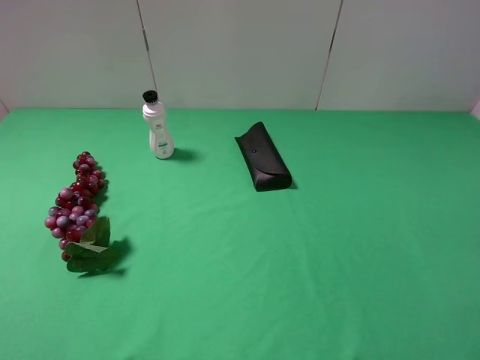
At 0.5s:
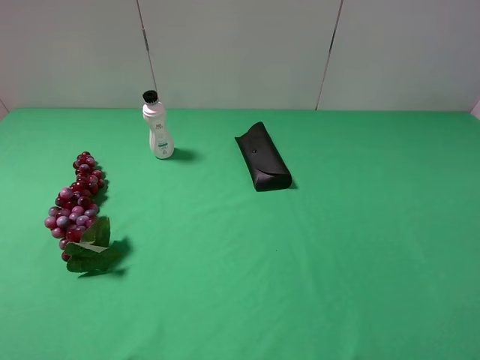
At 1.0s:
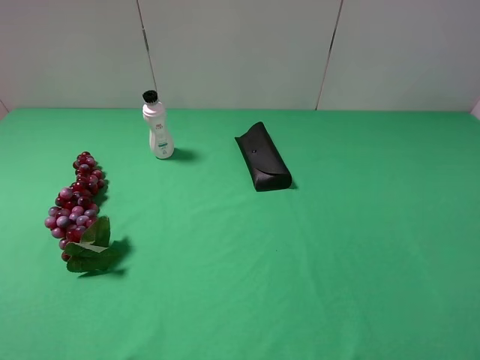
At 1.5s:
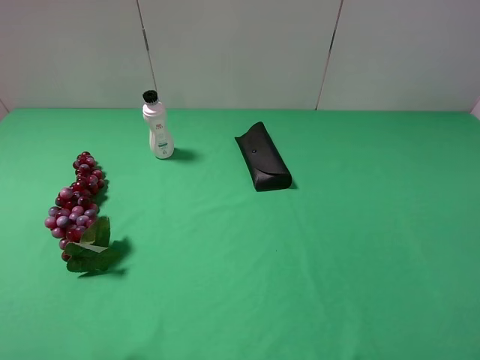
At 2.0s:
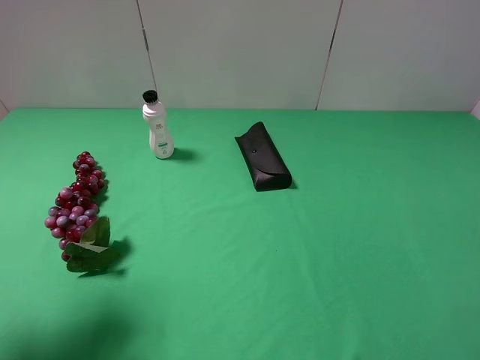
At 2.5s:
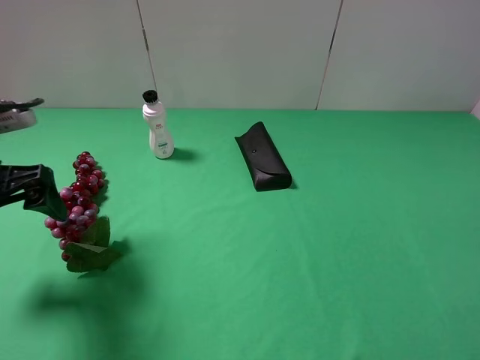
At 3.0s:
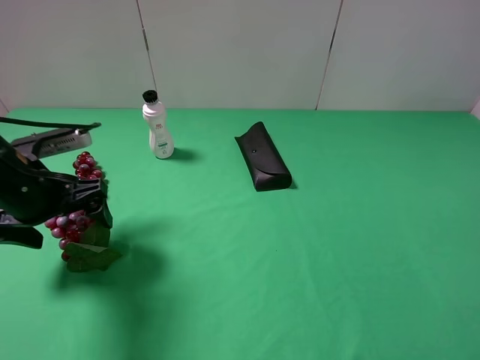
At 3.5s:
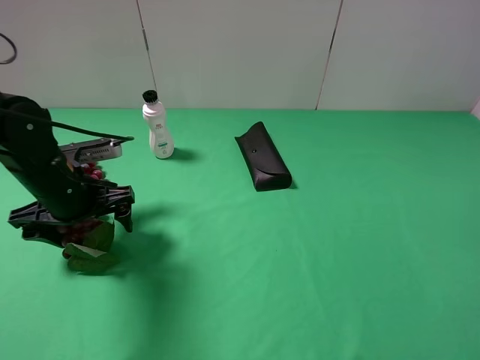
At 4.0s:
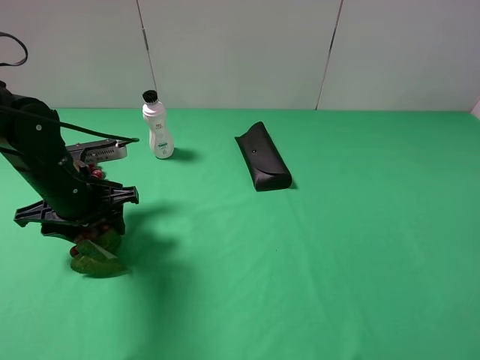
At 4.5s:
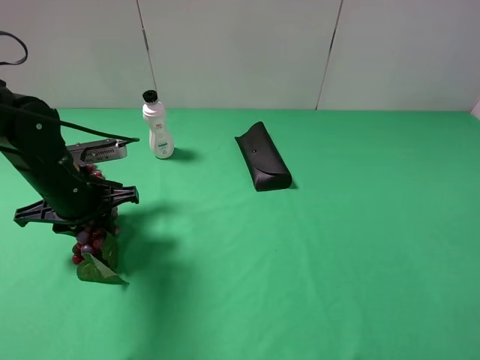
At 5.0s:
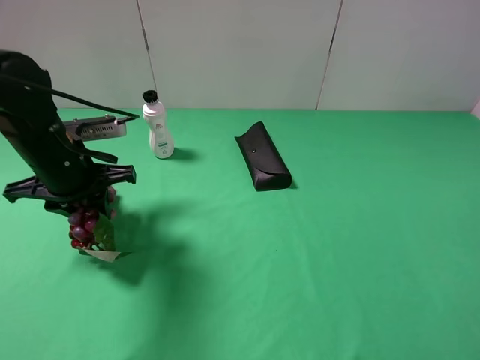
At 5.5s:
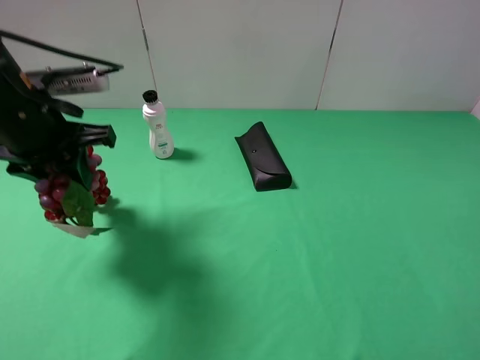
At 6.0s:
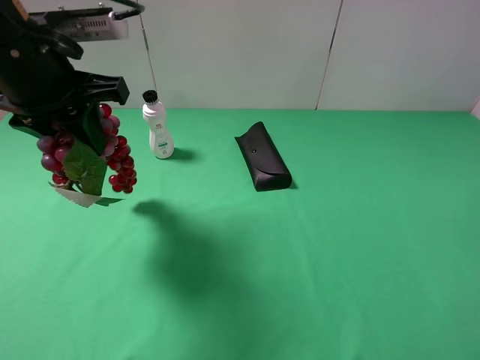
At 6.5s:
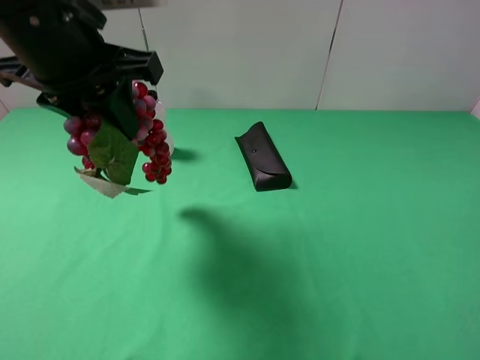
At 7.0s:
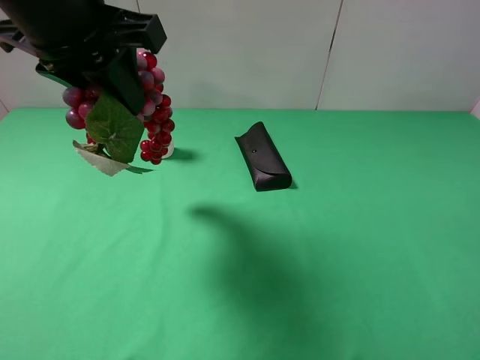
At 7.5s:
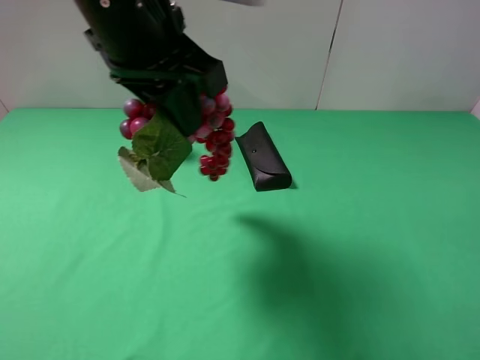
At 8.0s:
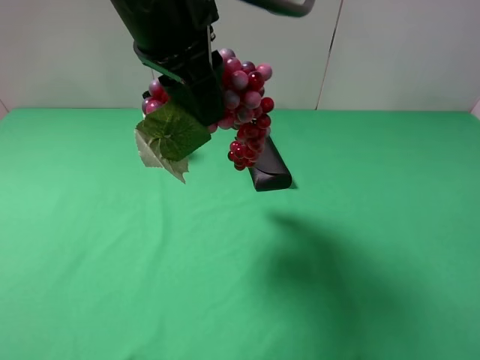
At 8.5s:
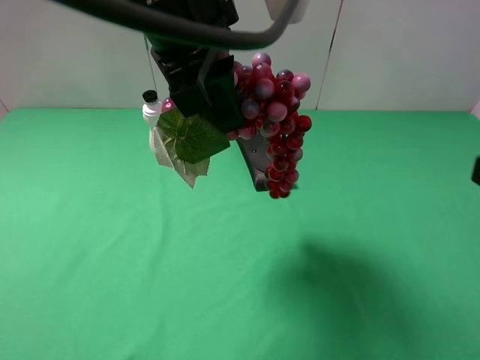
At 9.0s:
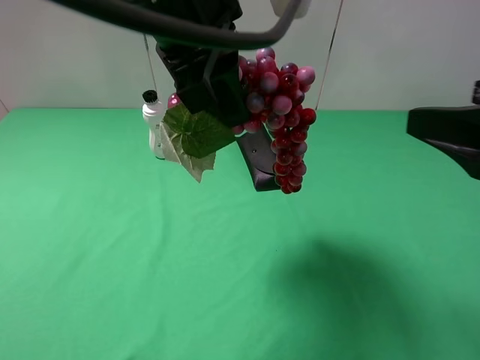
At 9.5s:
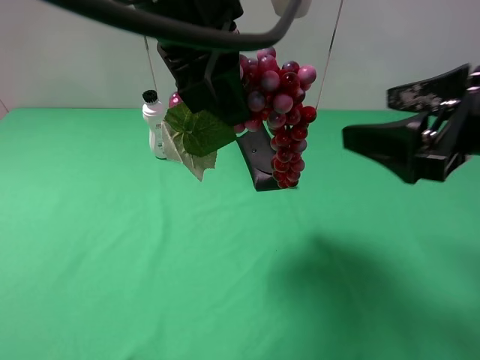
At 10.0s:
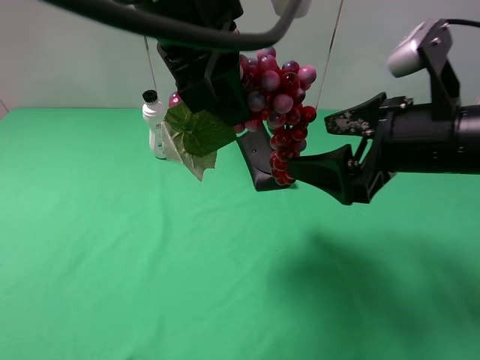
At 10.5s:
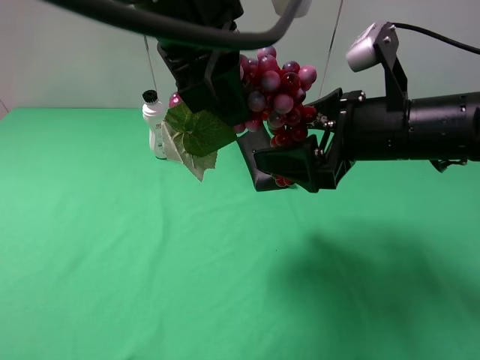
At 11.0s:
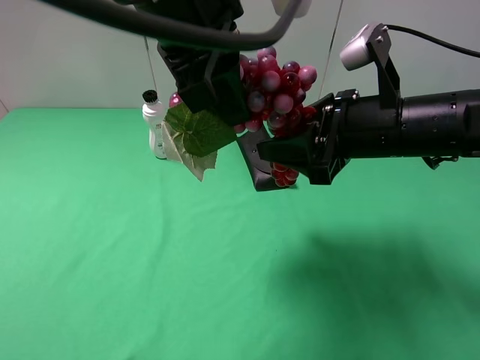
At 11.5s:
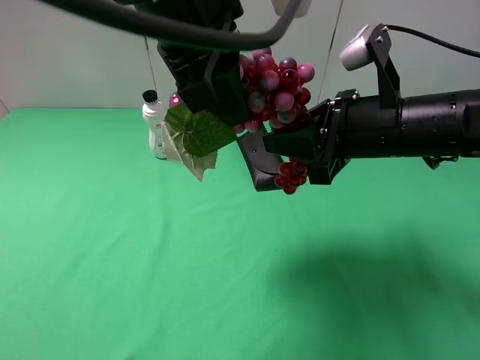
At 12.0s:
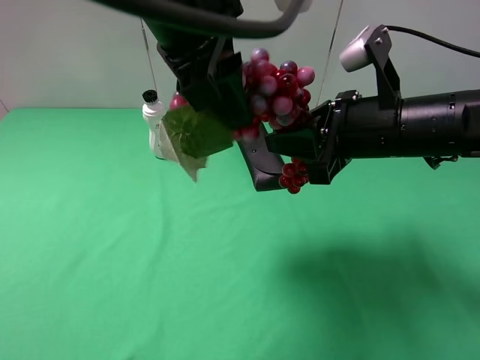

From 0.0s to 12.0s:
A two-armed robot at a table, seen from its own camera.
Task of the whole recording: use the left gripper to pick up the item and transfer it from the left gripper to the right gripper.
Step, from 0.0s to 4.0s: Use the left gripper to grab the grape on the left side of the table.
From 0.0s to 2.0s: The left gripper is displaced forward by roughly 15 cm.
From 2.0s to 4.0s: The left gripper shifts about 20 cm downward, forward and to the right, and closes.
From 4.0s to 6.0s: The left gripper heads upward, covering some 20 cm, and closes its fingers.
From 6.0s to 8.0s: The left gripper travels to the right by approximately 15 cm.
From 8.0s to 10.0s: The right gripper is displaced forward and to the left by approximately 20 cm.
From 10.0s to 12.0s: The left gripper opens. Meanwhile the right gripper closes up.

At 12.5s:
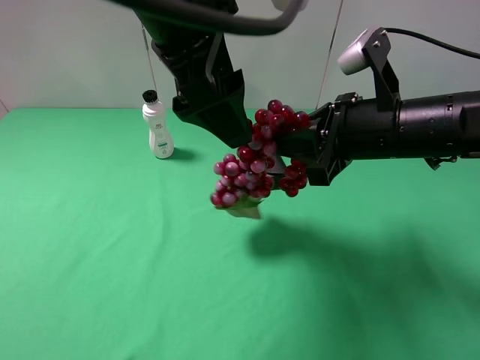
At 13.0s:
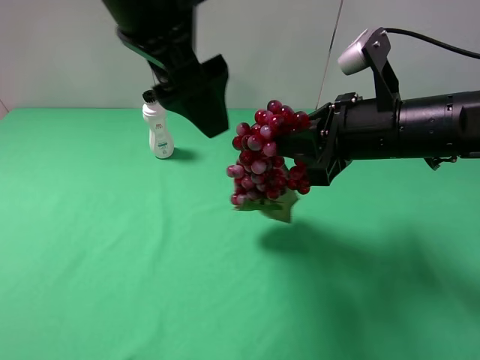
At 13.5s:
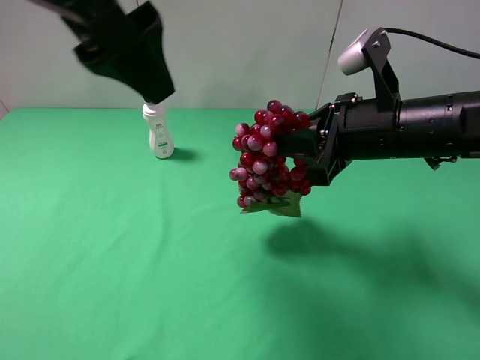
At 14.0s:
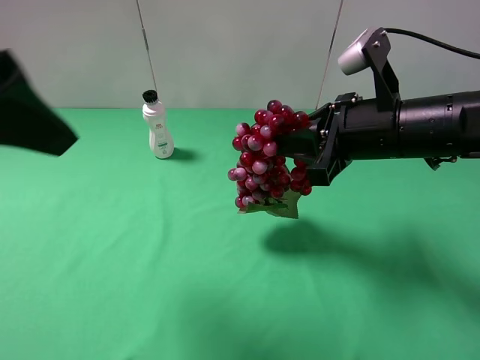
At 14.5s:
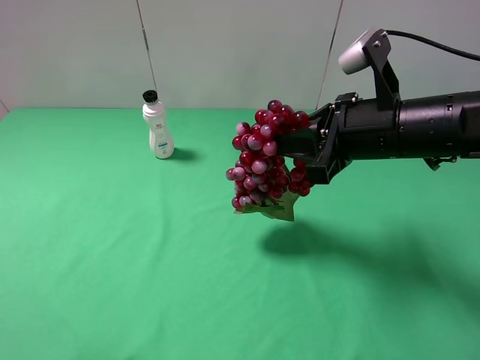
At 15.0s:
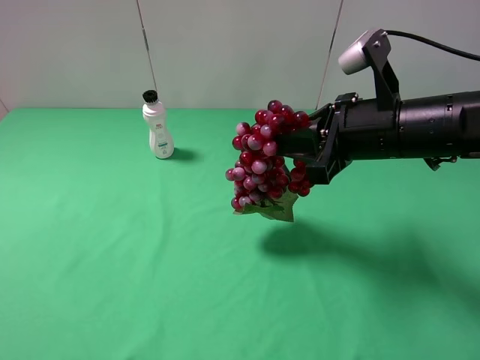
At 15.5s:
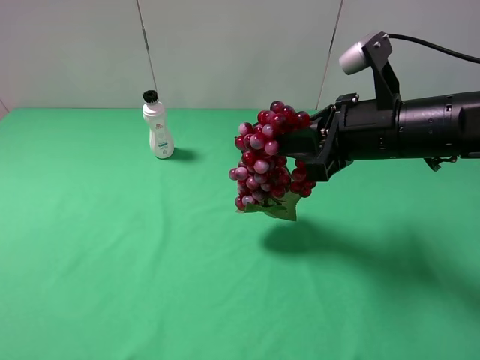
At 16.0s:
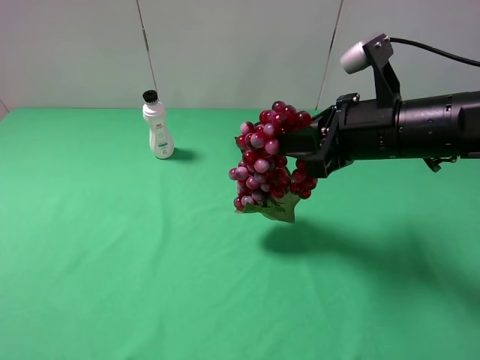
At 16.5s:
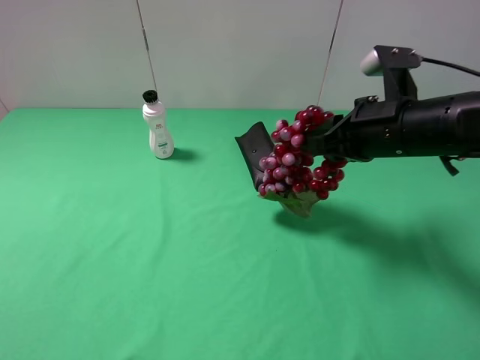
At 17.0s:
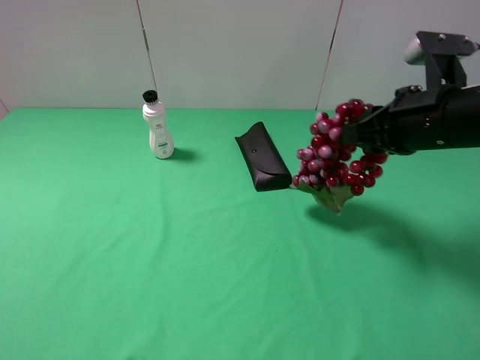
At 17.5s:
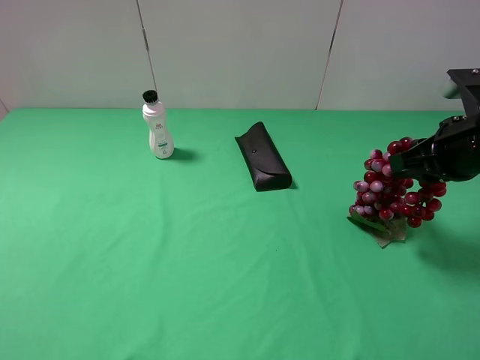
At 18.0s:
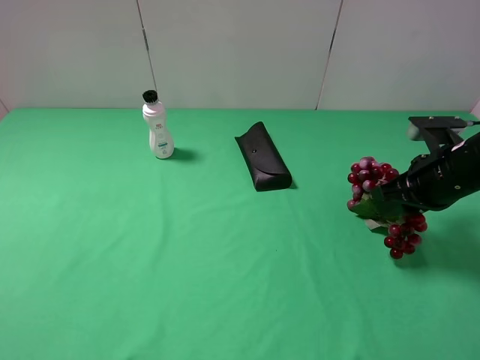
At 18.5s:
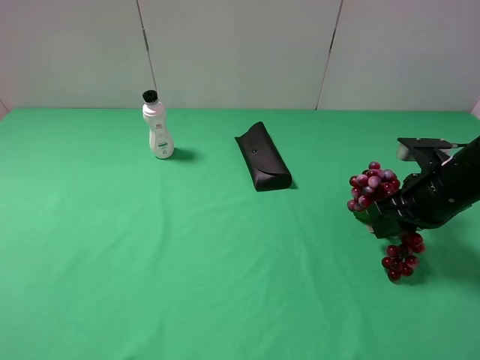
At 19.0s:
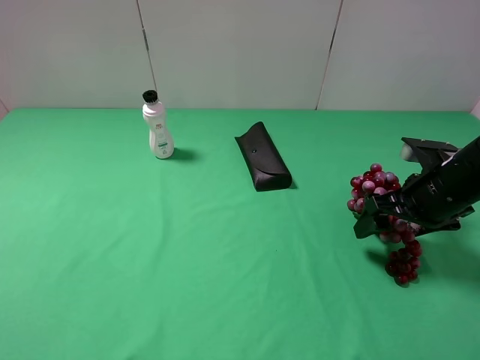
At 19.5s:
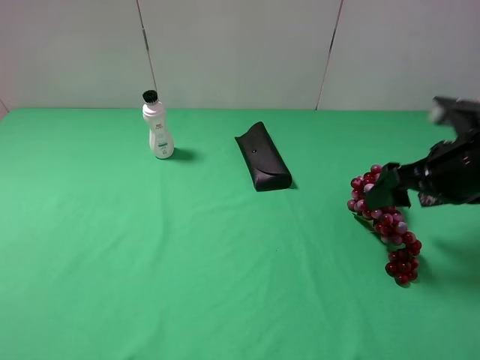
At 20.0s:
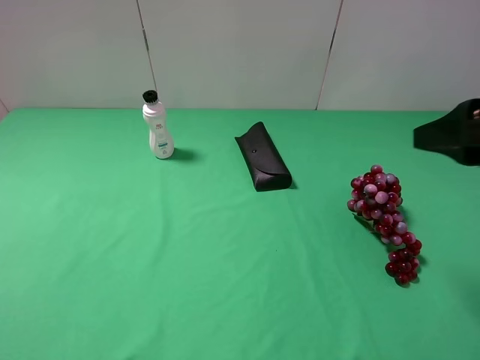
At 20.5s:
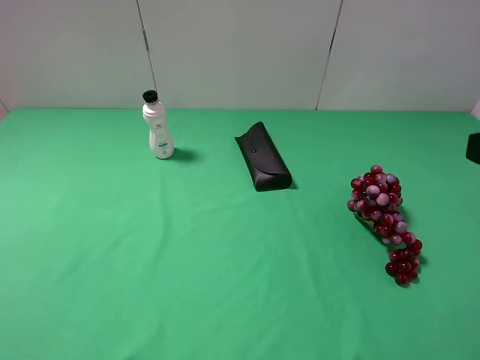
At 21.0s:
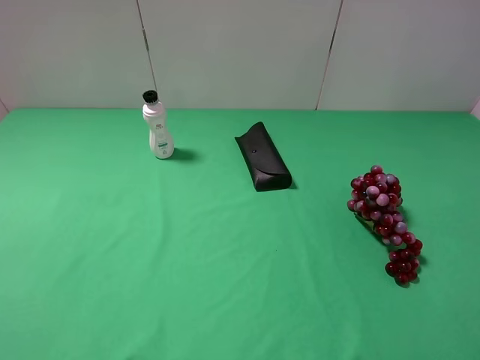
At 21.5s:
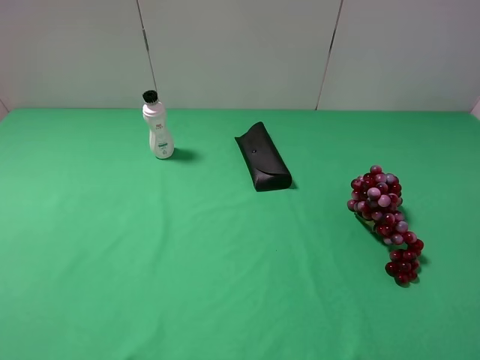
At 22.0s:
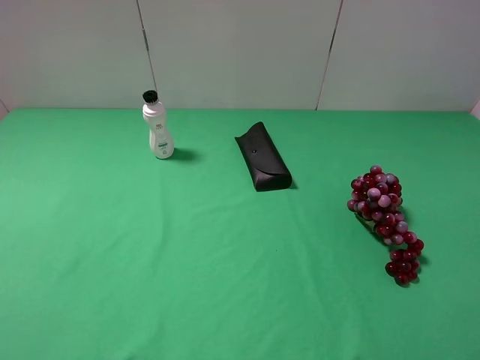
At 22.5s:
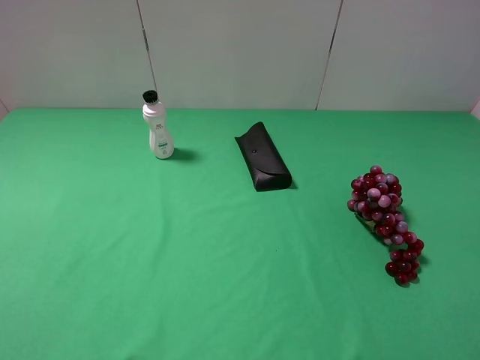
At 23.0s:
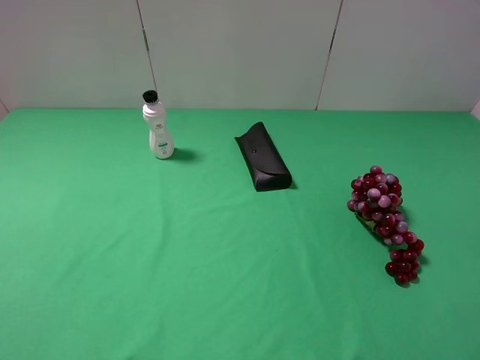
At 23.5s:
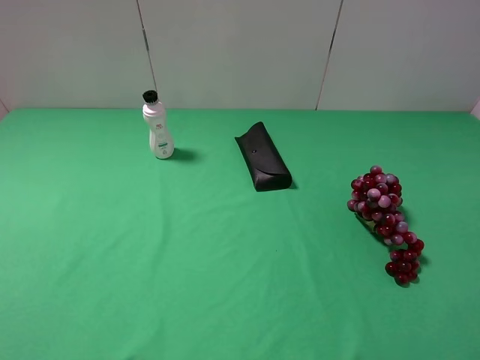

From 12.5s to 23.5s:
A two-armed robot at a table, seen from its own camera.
Task of the whole recording: use the left gripper to pick up the item and transfer it from the left gripper to the right gripper.
Step, from 12.5s to 19.0s: The right gripper places grape on the right side of the table.
From 12.5s to 14.5s: The left gripper travels to the left and backward by some 30 cm.
From 14.5s to 16.0s: The left gripper moves downward, some 5 cm.
From 16.0s to 18.0s: The right gripper shifts about 10 cm to the right and downward.
From 18.0s to 20.0s: The right gripper is displaced upward and backward by about 15 cm, and opens its fingers.
From 20.0s to 21.5s: The right gripper travels backward by approximately 15 cm.

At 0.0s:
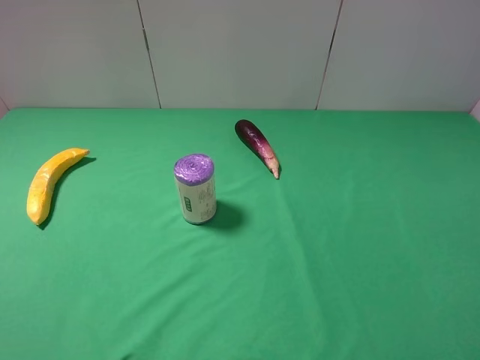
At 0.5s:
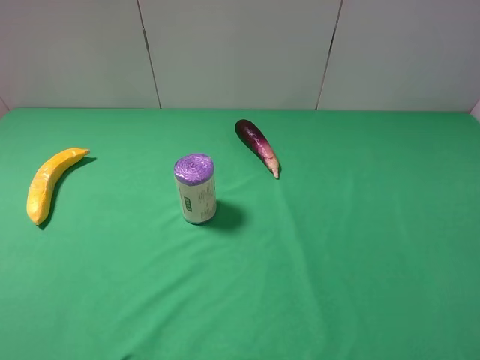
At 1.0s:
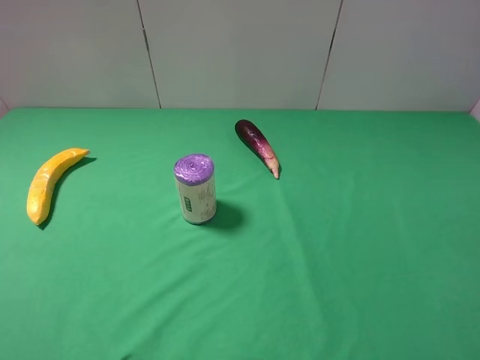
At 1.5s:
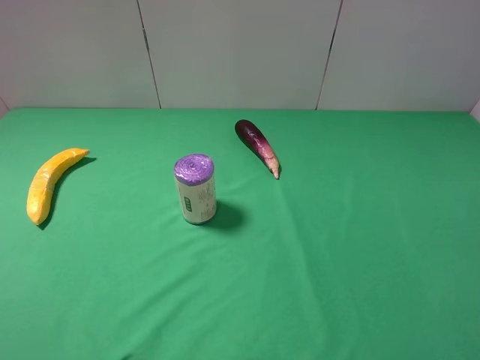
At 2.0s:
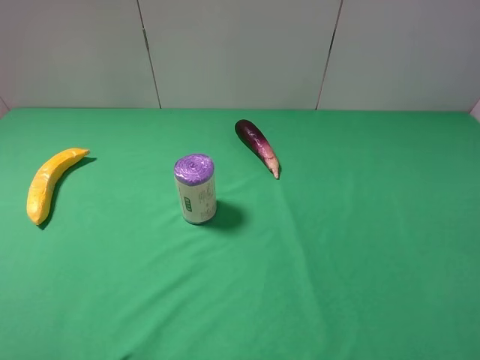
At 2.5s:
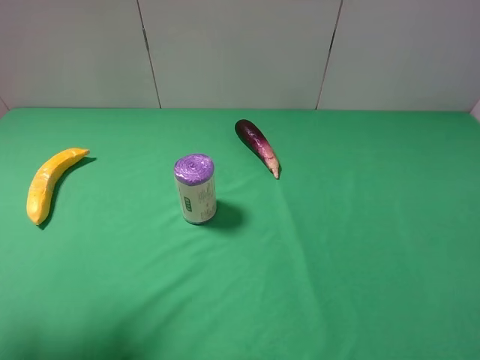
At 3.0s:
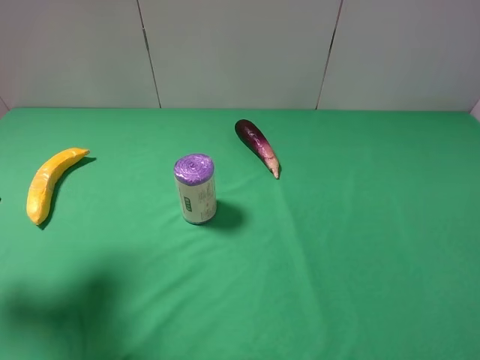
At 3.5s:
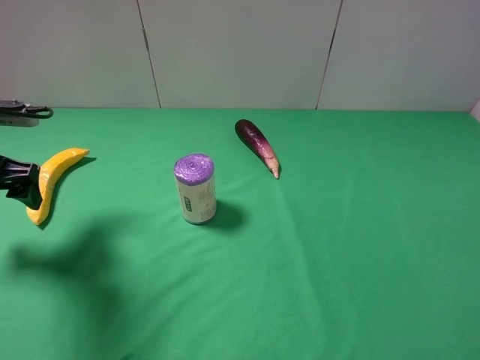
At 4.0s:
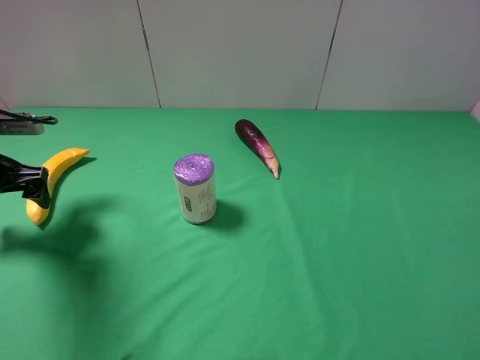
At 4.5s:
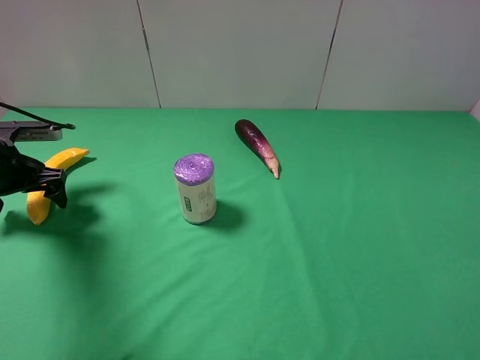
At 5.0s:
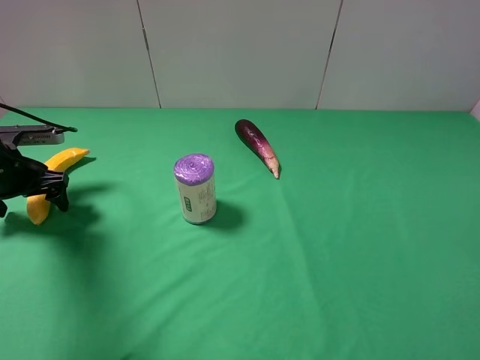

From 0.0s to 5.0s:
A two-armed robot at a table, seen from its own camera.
Task of the whole recording: use the left gripper to pick up the item and transfer it from the left gripper to the right gripper.
From 0.0s to 2.5s: The left gripper heads forward, covering about 15 cm.
From 2.5s to 5.0s: The left gripper heads forward and downward, covering about 25 cm.
